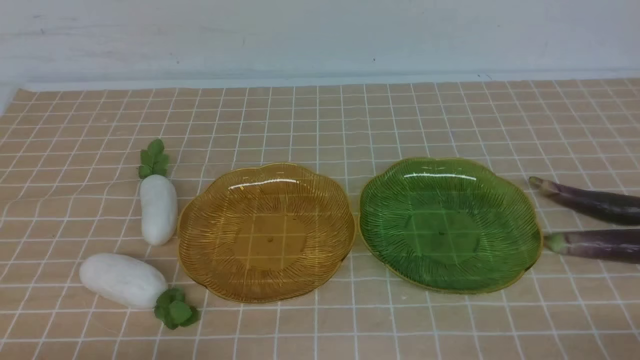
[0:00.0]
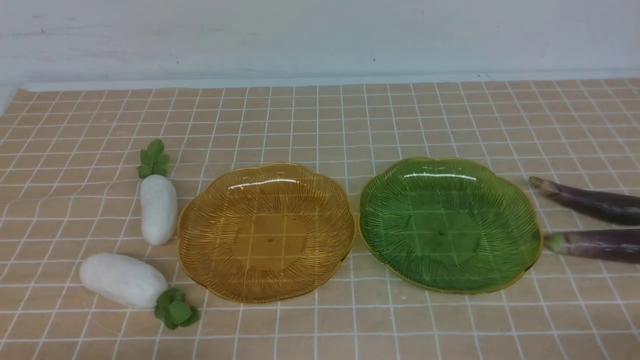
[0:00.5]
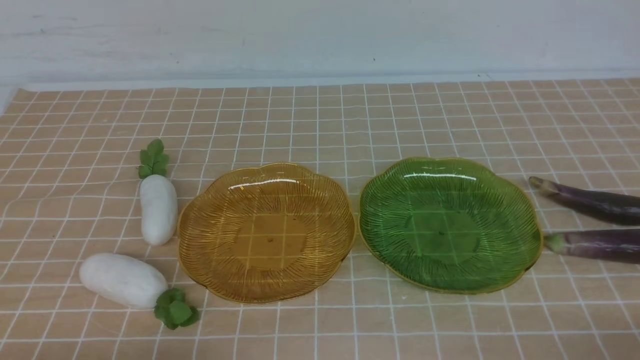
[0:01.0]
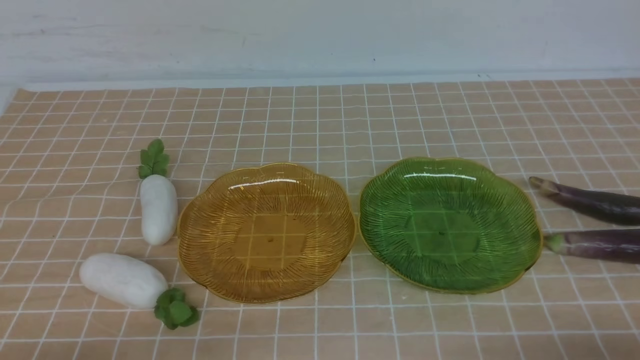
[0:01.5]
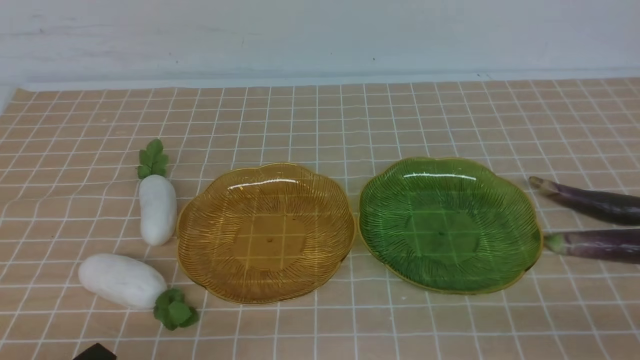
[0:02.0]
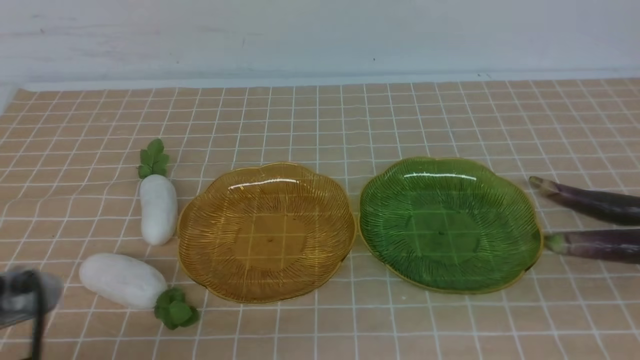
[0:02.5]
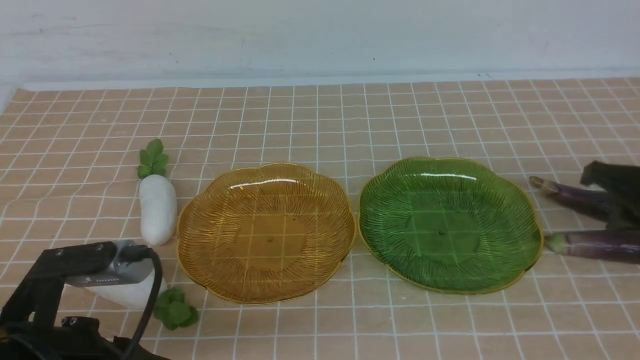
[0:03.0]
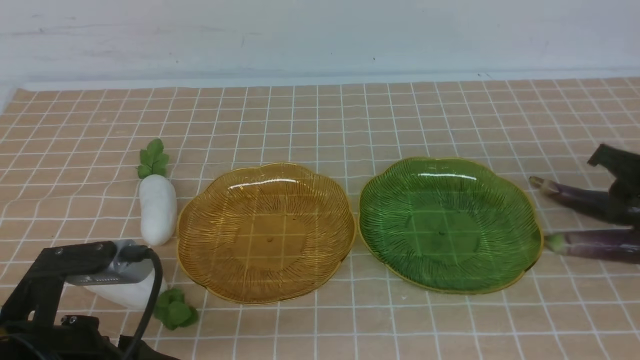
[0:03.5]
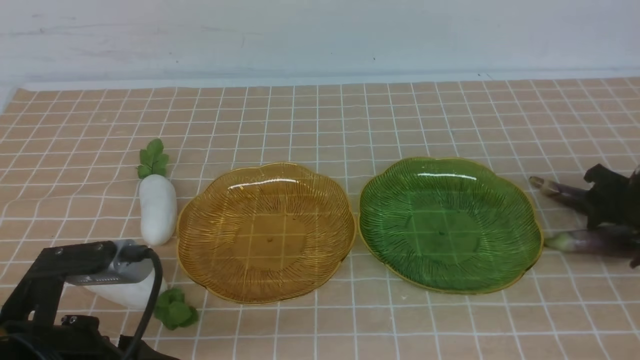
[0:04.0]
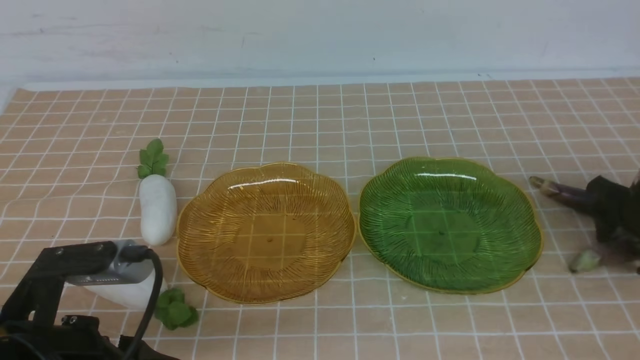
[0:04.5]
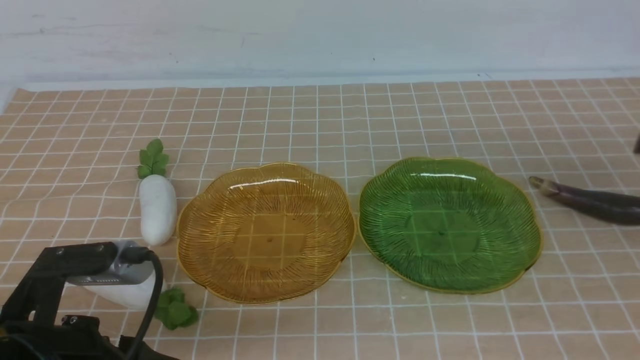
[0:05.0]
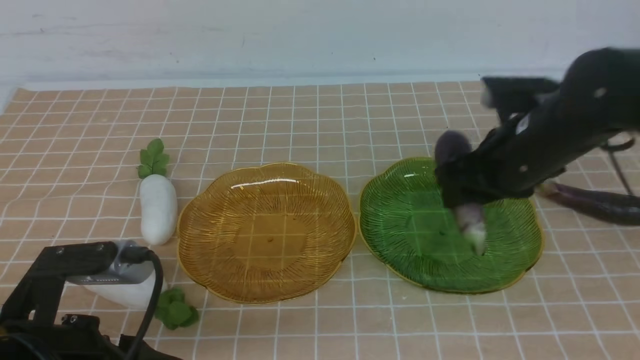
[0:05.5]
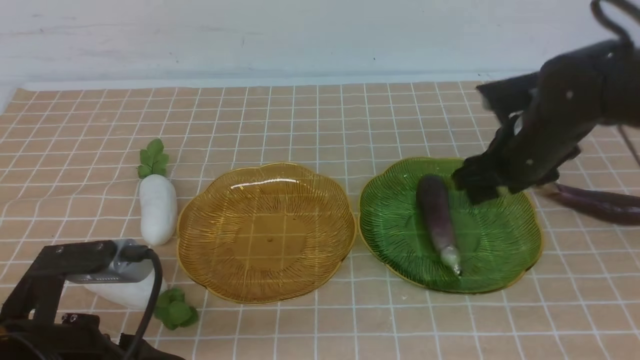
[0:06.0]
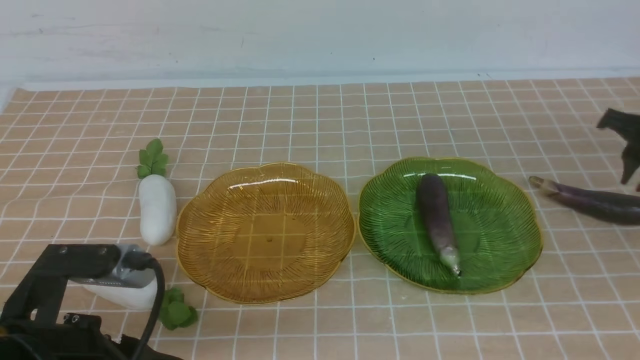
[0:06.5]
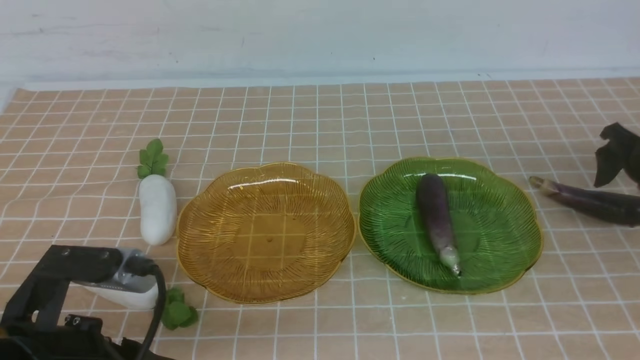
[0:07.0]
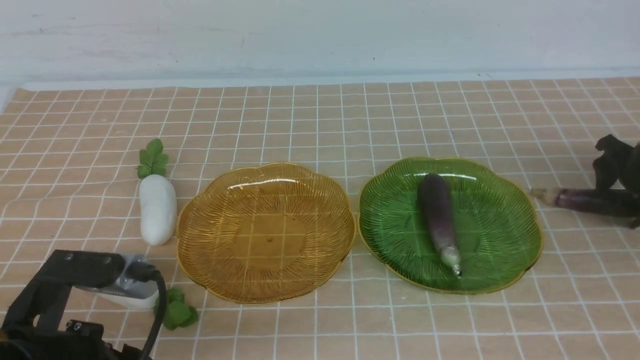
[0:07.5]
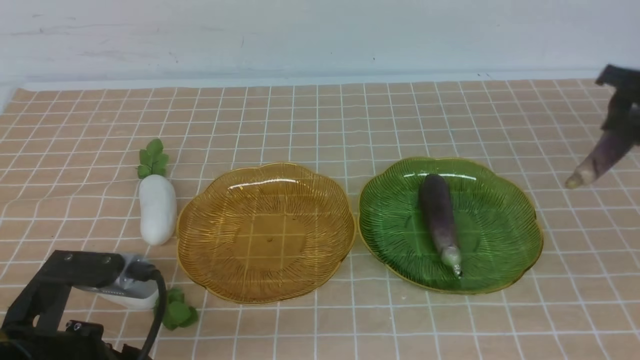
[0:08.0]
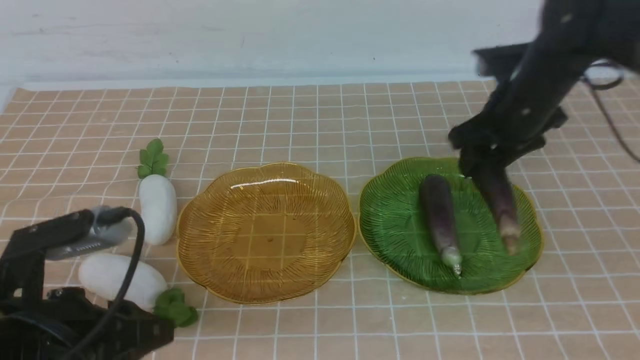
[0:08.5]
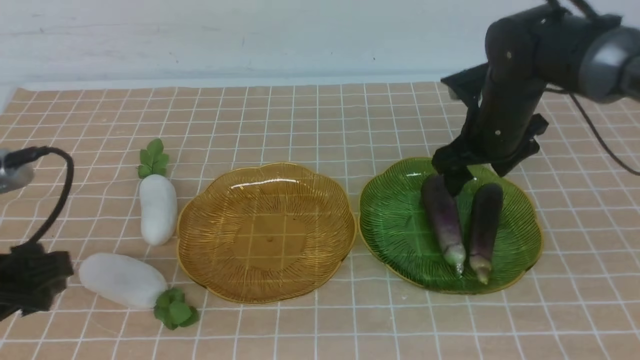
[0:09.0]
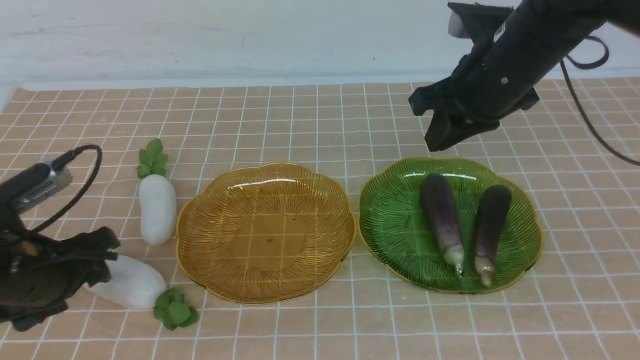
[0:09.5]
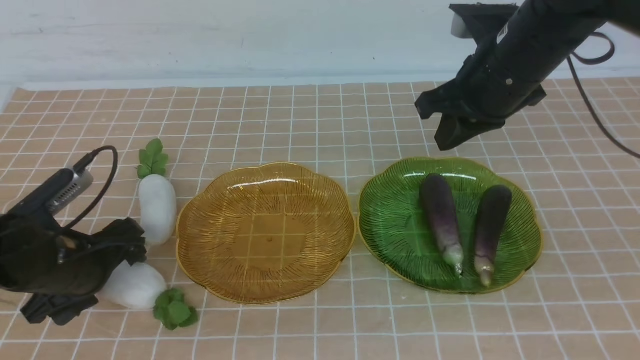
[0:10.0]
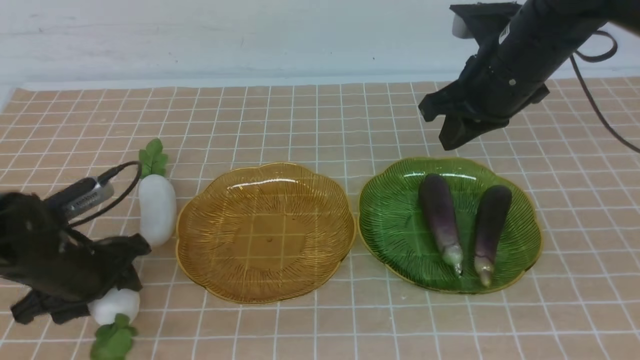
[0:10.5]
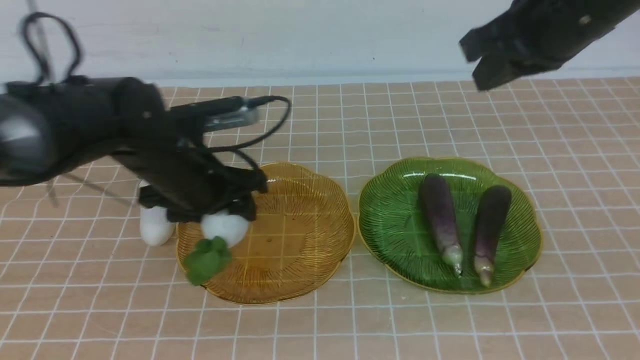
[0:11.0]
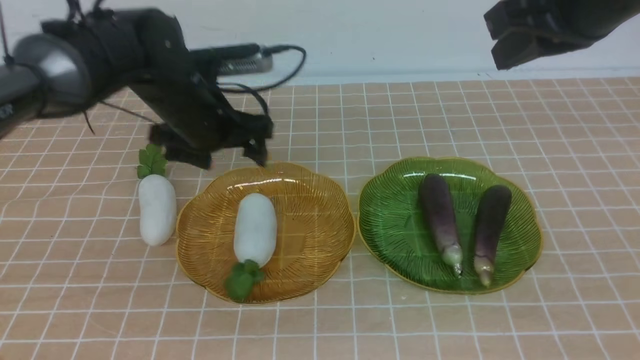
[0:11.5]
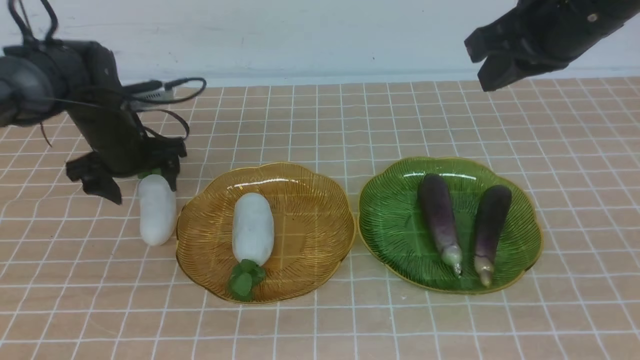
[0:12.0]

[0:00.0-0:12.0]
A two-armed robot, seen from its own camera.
Step, 0:00.0 to 0:06.0: use the right arm to grab an eggplant and put it into the right plate.
Step, 0:06.5 to 0:09.0: use the right arm to grab an eggplant and put it into the right plate.
0:02.0 to 0:04.0: The left gripper is displaced forward by about 10 cm, and opens up. Meanwhile the right gripper goes about 30 cm forward, and opens its fingers.
0:04.0 to 0:06.0: The right gripper goes roughly 15 cm to the left and upward, and closes.
0:06.0 to 0:08.0: The right gripper travels to the right and forward by some 15 cm, and opens and closes again.
0:08.0 to 0:10.0: The right gripper moves to the left and upward, some 20 cm, and closes its fingers. The left gripper is displaced forward, downward and to the left by some 15 cm, and opens its fingers.
0:10.0 to 0:12.0: The left gripper is displaced forward by approximately 20 cm. Meanwhile the right gripper moves upward, some 5 cm.

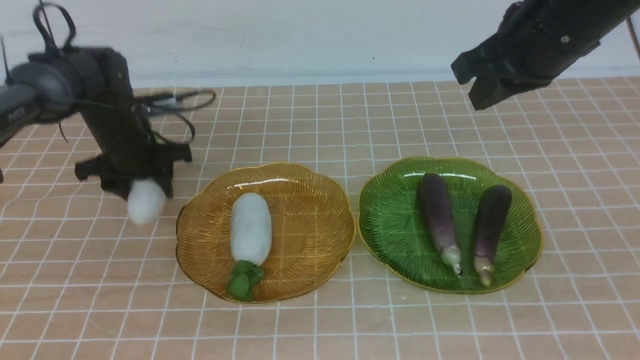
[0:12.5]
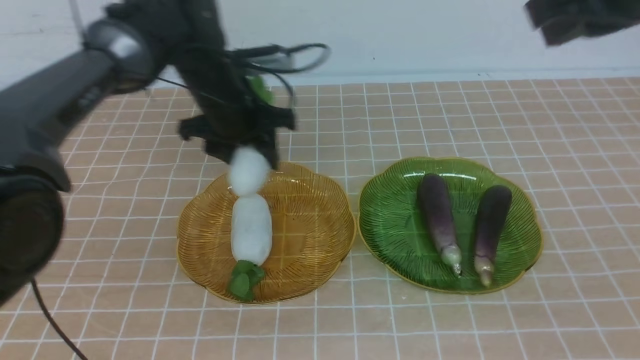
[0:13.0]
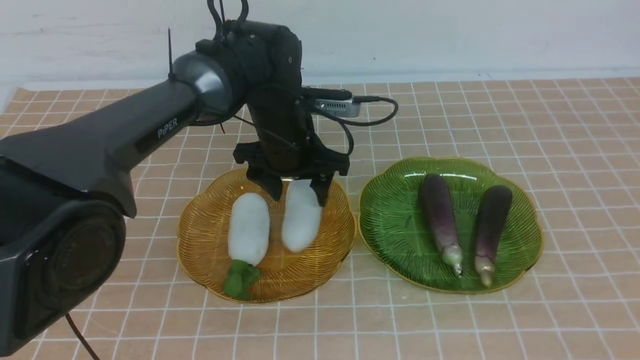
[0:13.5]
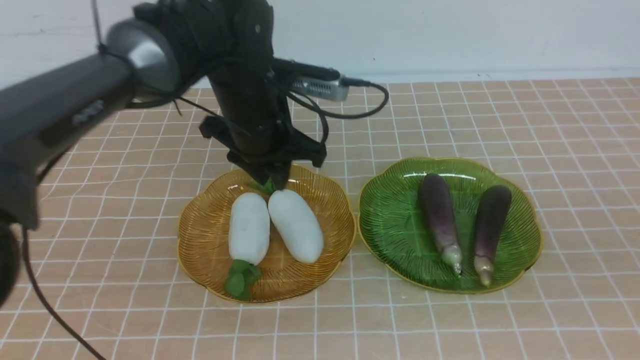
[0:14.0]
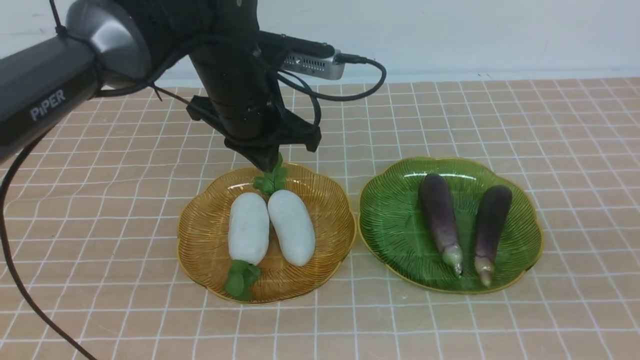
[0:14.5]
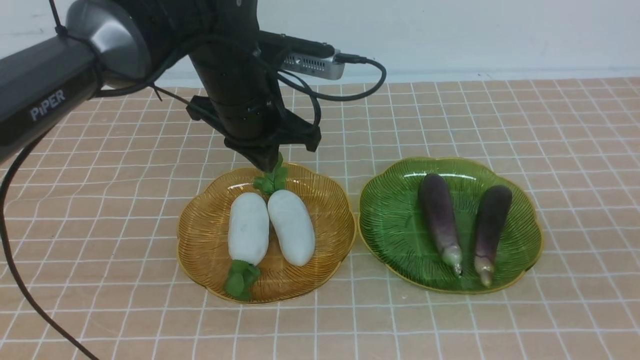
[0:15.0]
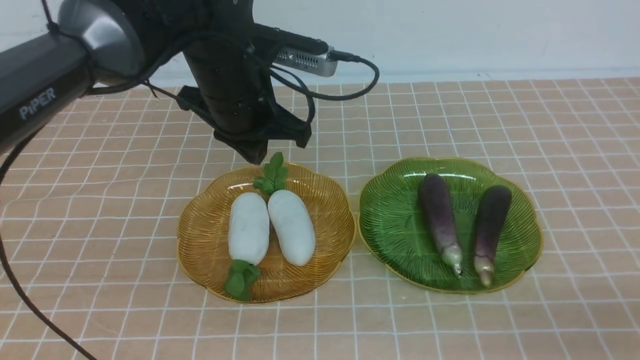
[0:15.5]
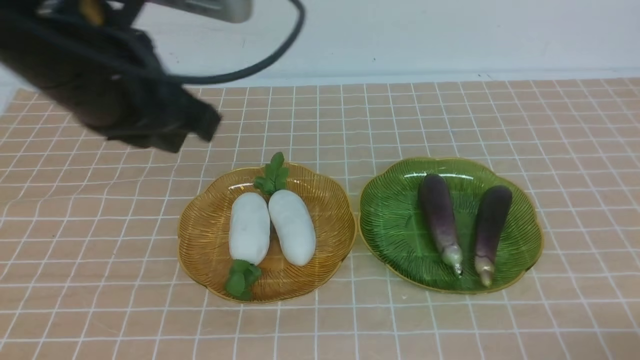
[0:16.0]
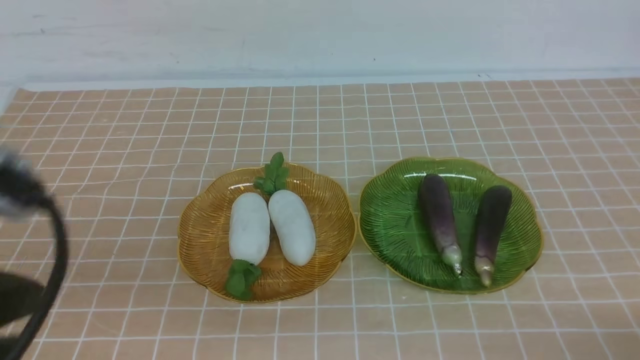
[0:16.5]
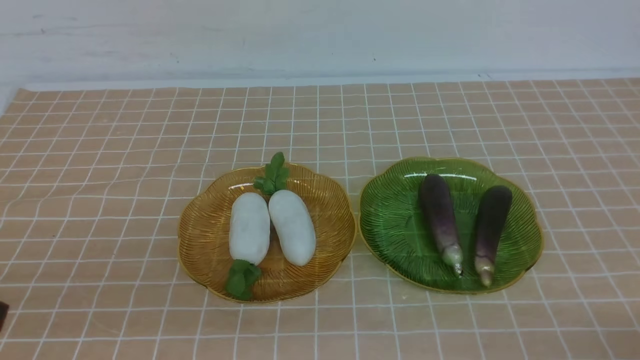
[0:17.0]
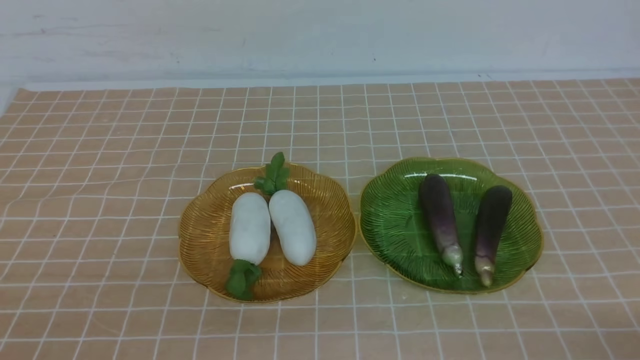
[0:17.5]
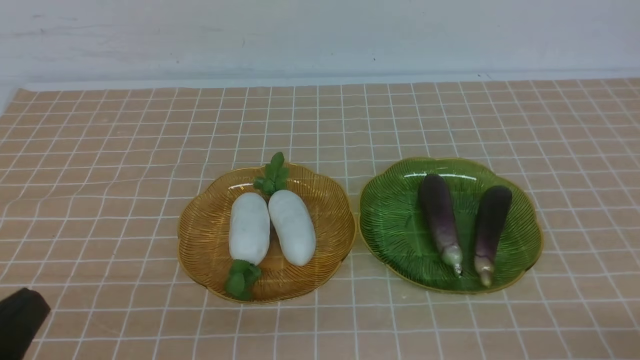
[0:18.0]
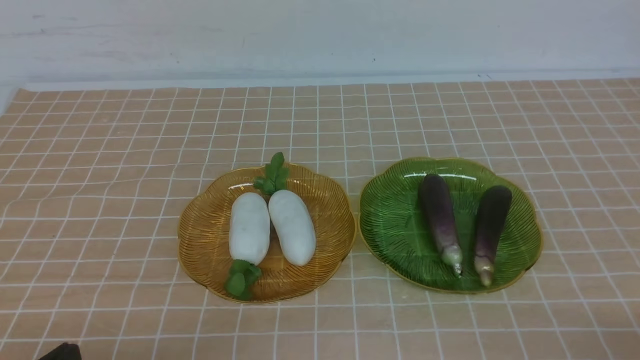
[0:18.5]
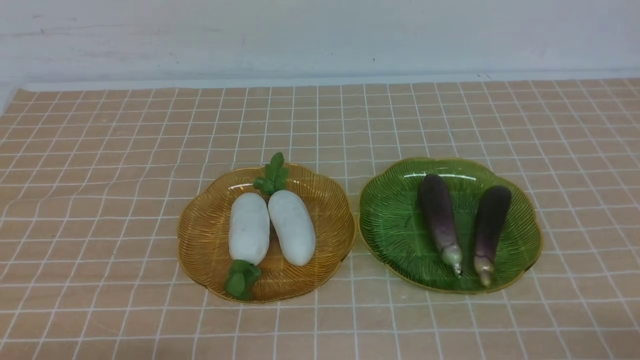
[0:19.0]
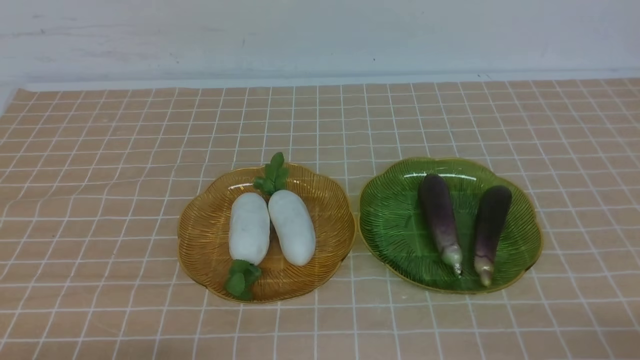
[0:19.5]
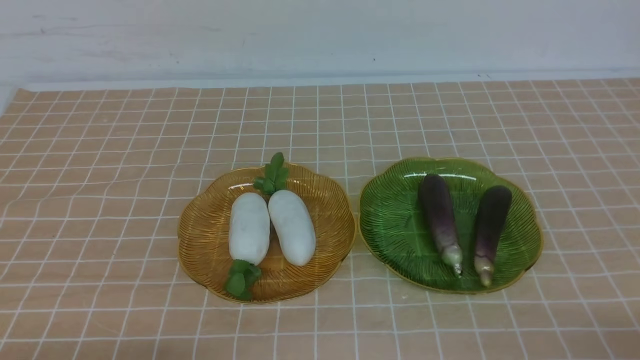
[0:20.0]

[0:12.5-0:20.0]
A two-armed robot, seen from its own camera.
0:12.5 to 0:14.5: The right gripper heads backward and downward, covering some 30 cm; the left gripper heads to the right, backward and upward, covering some 15 cm, and closes its fingers.
0:14.5 to 0:16.5: The right gripper moves downward, roughly 10 cm. The left gripper travels backward and to the left by approximately 35 cm.
0:16.5 to 0:18.0: The left gripper shifts about 15 cm downward.
0:18.0 to 0:20.0: Both grippers stay put.
